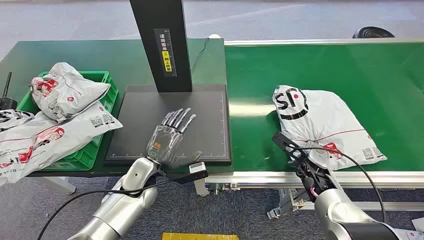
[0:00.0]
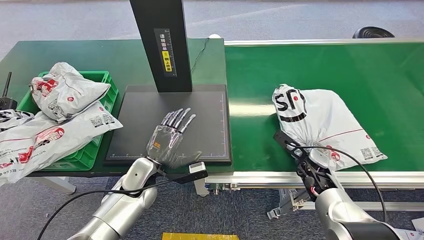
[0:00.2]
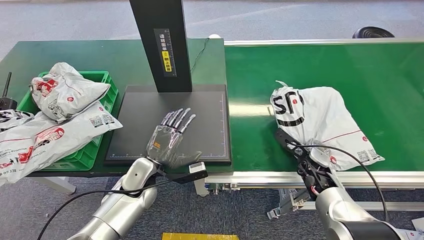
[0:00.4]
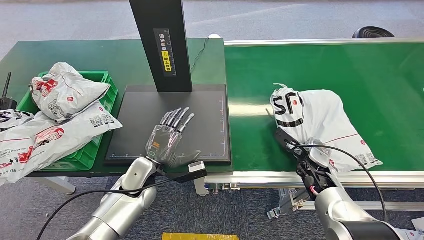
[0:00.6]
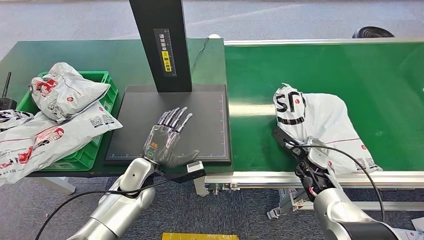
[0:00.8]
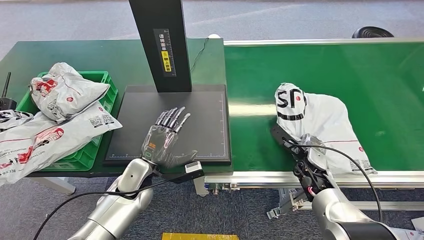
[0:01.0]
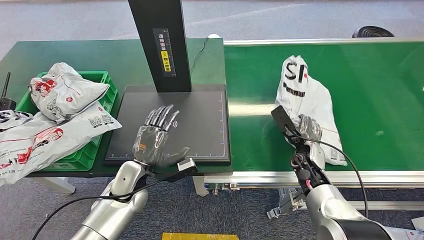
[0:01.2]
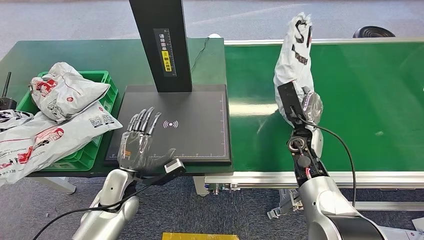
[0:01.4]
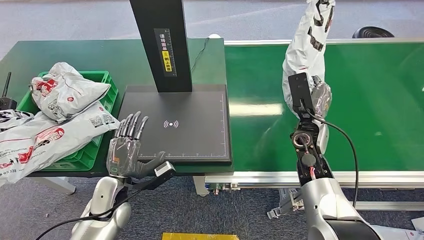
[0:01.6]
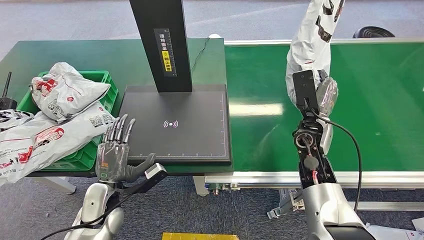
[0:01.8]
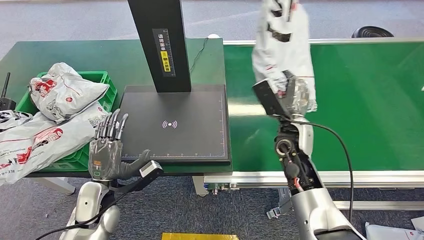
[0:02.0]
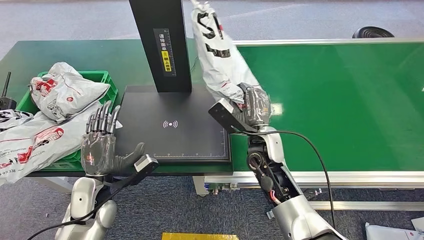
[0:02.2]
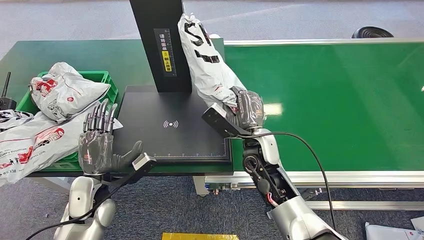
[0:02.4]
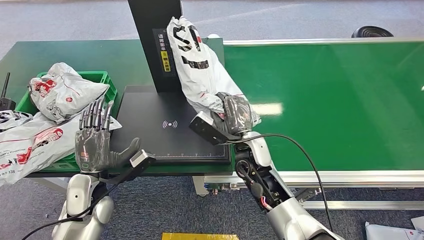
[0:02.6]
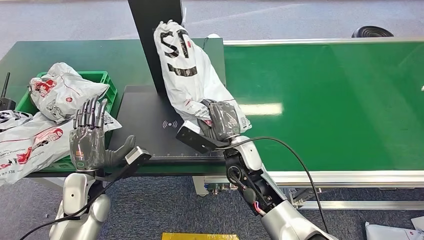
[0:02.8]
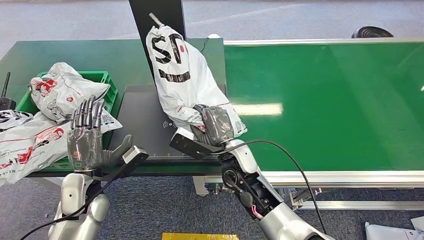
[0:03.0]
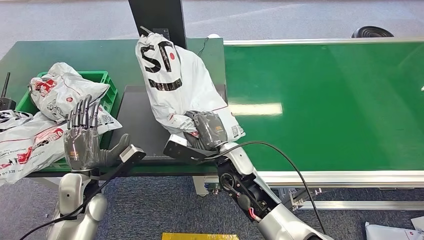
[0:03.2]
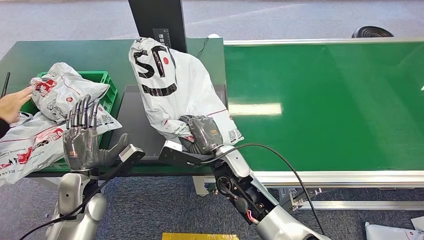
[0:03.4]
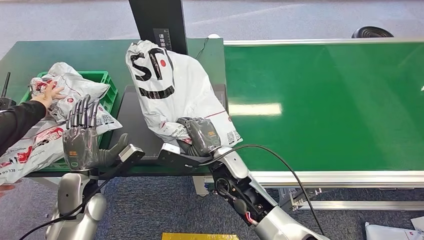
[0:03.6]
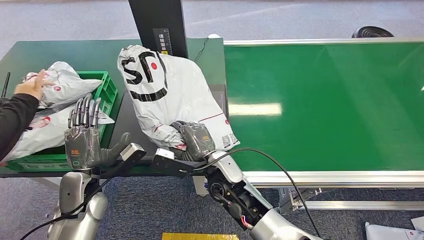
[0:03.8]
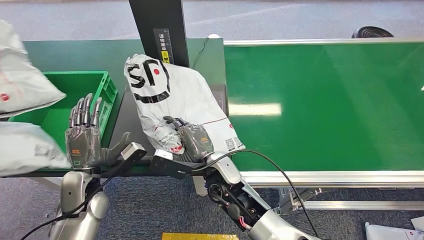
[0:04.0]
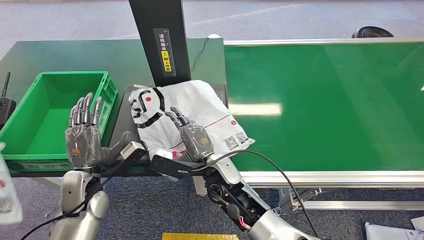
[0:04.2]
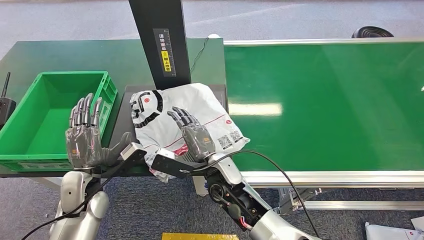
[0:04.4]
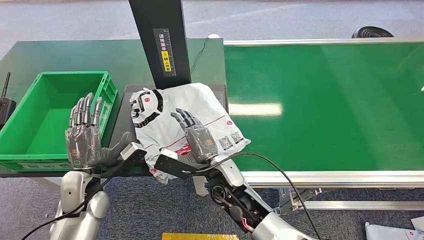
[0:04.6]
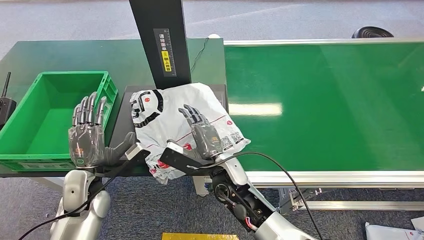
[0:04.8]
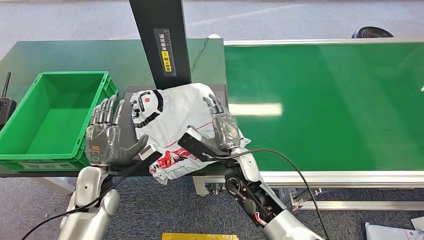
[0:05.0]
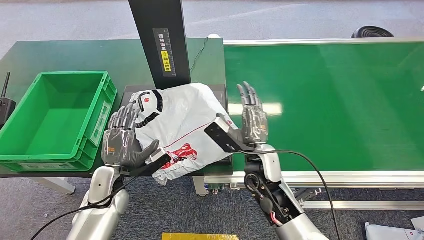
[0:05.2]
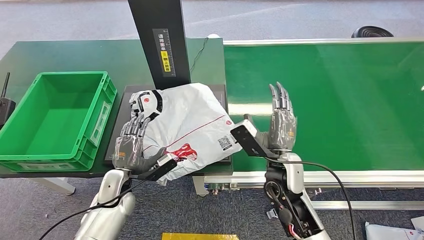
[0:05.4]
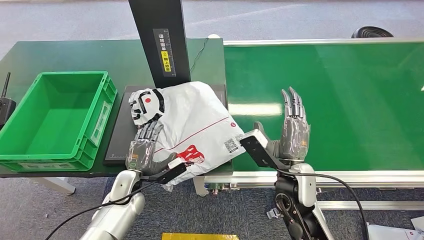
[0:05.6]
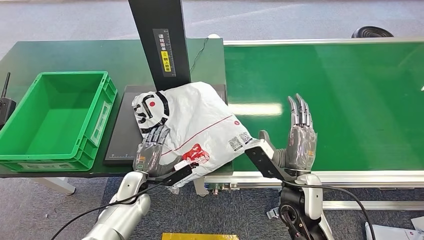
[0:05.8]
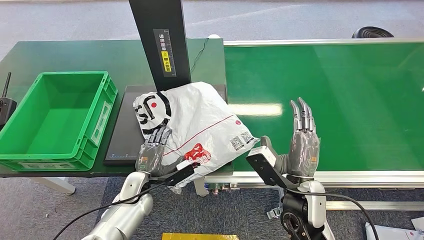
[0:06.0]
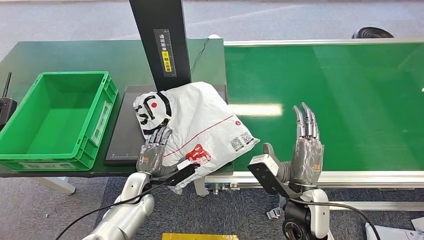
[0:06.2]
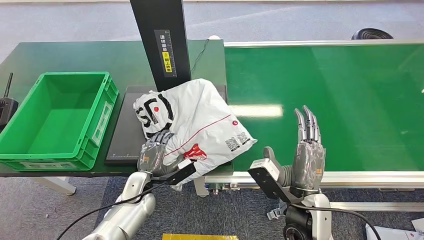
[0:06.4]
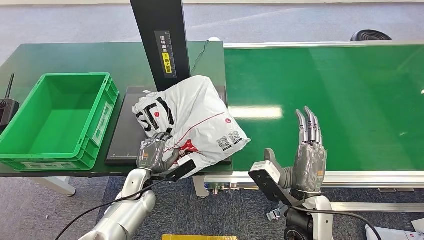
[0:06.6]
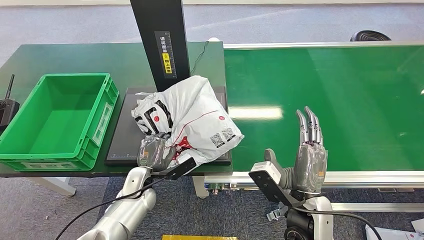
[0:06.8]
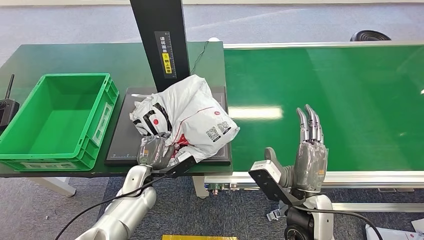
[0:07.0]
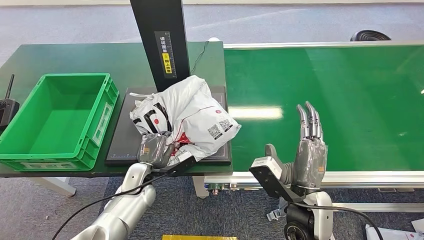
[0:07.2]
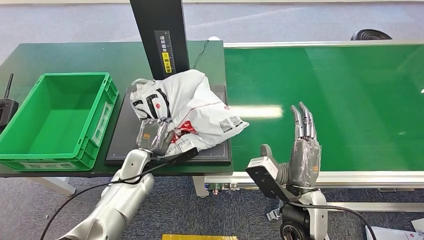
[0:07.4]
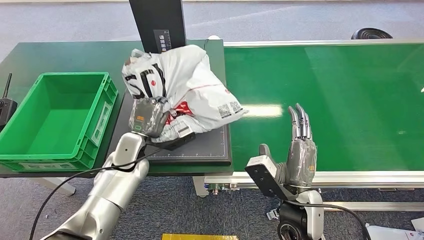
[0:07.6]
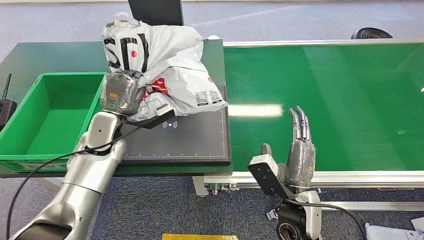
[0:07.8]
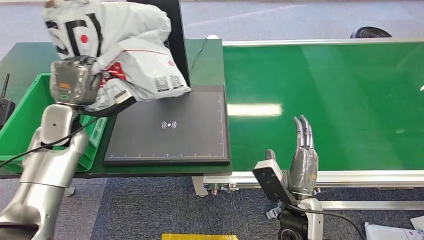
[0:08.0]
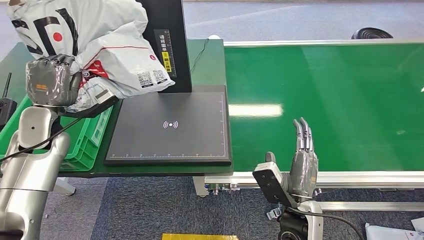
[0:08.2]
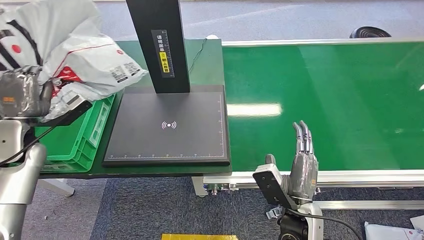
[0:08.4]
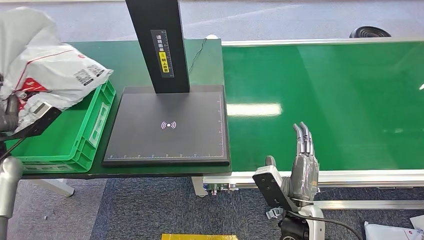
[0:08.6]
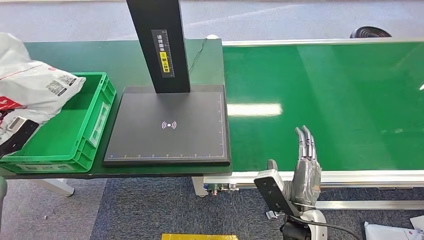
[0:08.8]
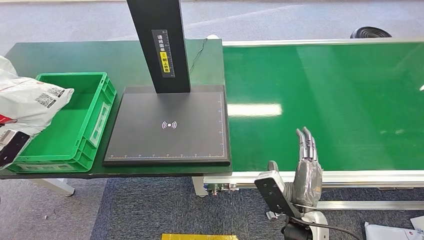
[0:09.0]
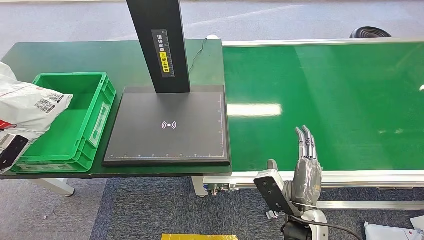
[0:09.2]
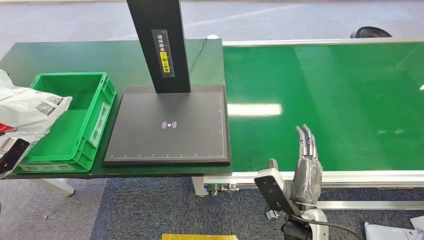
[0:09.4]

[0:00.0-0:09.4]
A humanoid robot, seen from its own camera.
Step, 0:00.0 to 0:01.2: Pick up the package from the conveyor belt.
Step, 0:01.4 to 0:05.2: Place the package onto the inbound machine.
Step, 0:05.4 to 0:08.2: Pick up the package from the inbound machine.
Step, 0:08.4 to 0:09.4: Place the package into the parcel locker.
